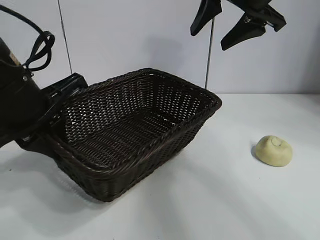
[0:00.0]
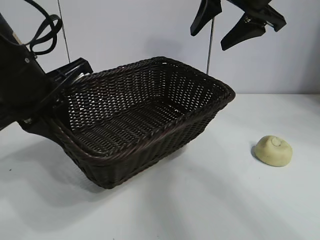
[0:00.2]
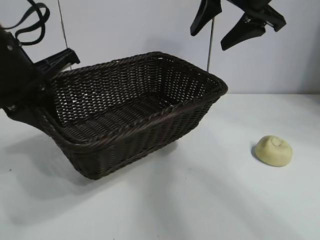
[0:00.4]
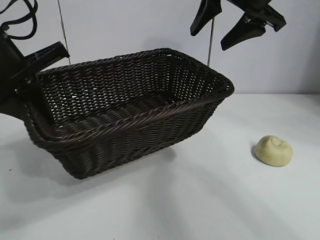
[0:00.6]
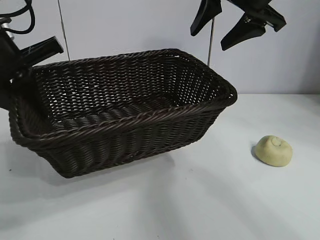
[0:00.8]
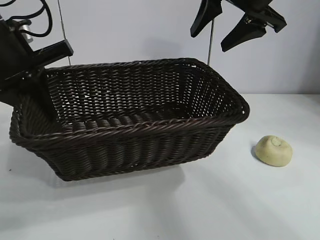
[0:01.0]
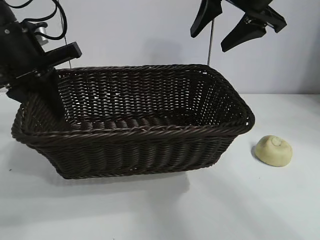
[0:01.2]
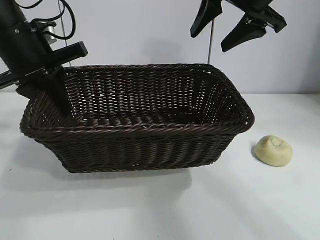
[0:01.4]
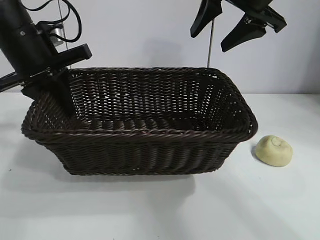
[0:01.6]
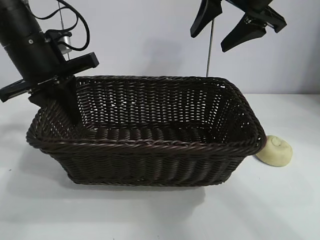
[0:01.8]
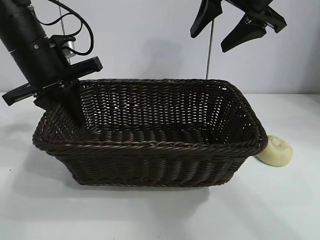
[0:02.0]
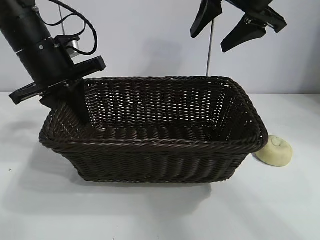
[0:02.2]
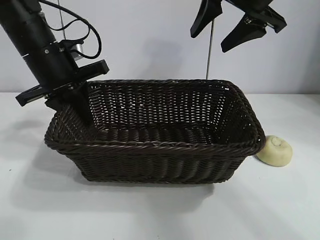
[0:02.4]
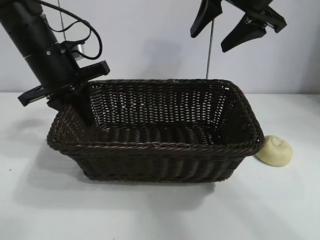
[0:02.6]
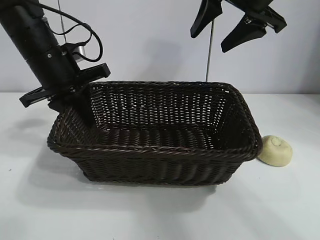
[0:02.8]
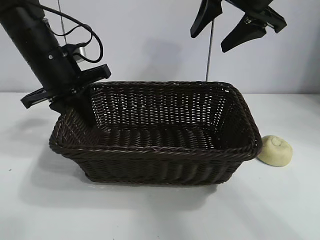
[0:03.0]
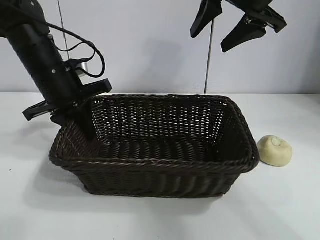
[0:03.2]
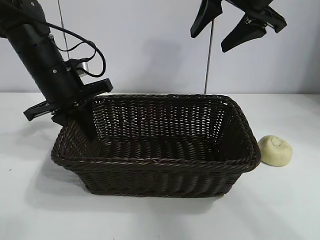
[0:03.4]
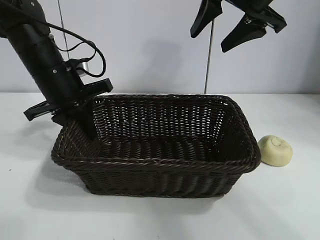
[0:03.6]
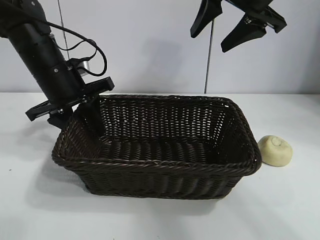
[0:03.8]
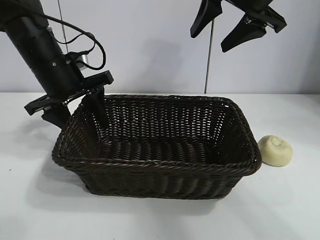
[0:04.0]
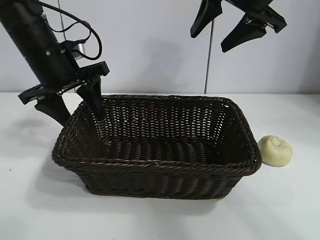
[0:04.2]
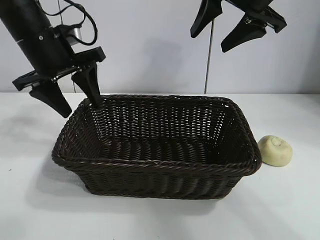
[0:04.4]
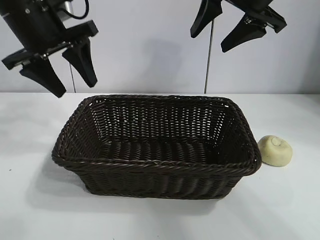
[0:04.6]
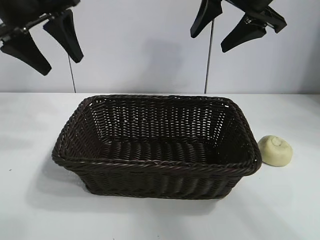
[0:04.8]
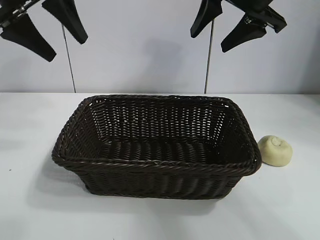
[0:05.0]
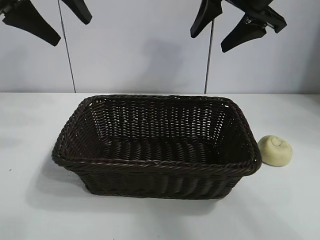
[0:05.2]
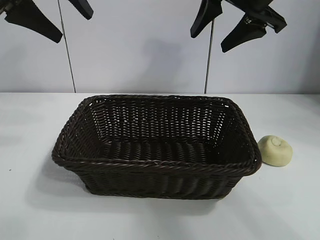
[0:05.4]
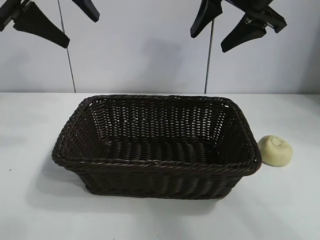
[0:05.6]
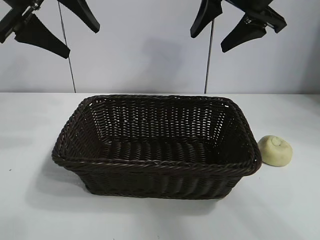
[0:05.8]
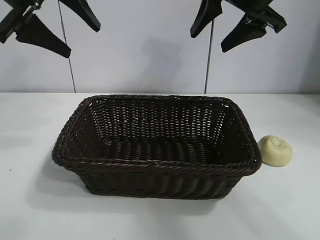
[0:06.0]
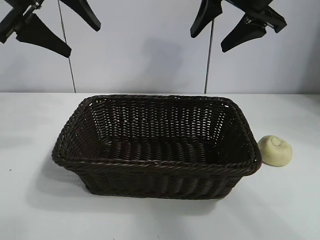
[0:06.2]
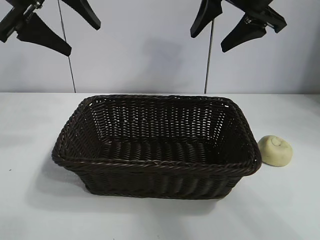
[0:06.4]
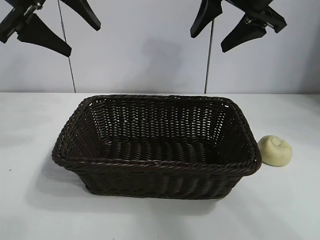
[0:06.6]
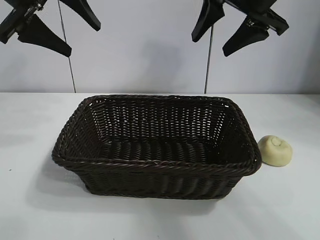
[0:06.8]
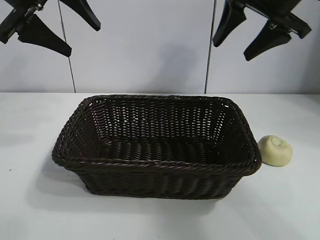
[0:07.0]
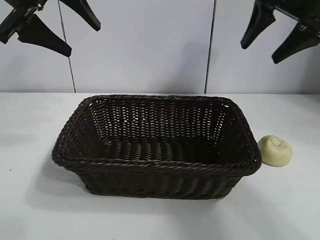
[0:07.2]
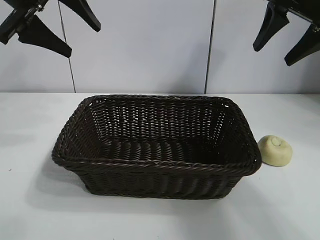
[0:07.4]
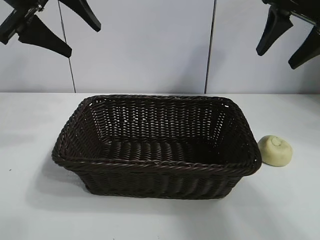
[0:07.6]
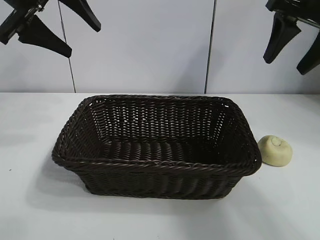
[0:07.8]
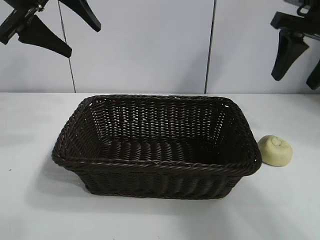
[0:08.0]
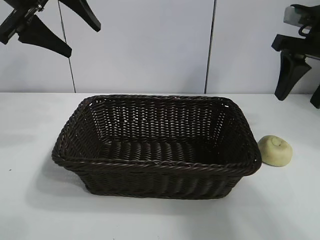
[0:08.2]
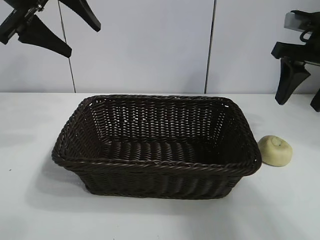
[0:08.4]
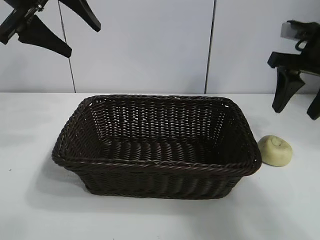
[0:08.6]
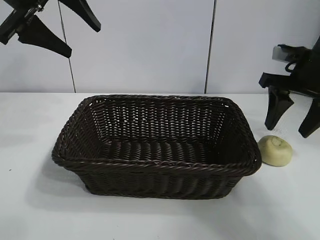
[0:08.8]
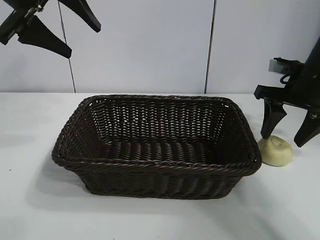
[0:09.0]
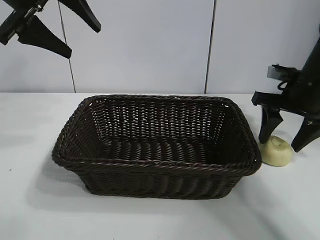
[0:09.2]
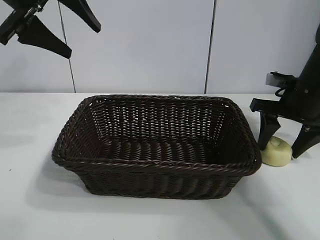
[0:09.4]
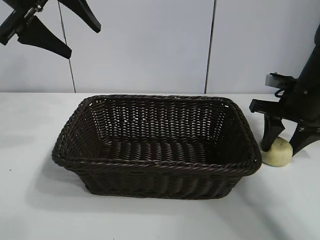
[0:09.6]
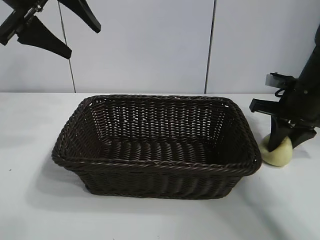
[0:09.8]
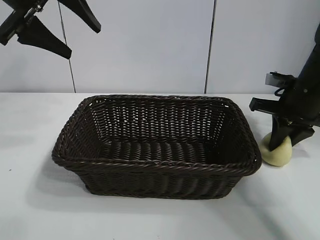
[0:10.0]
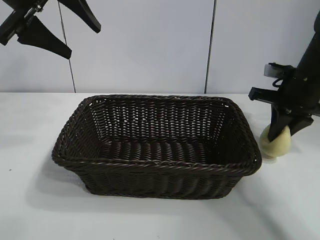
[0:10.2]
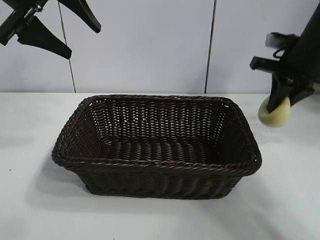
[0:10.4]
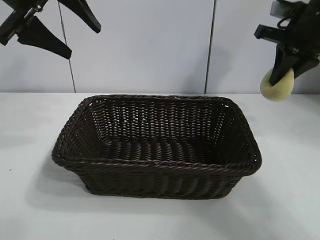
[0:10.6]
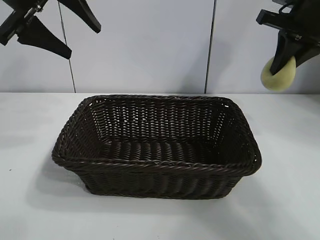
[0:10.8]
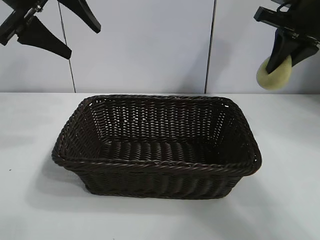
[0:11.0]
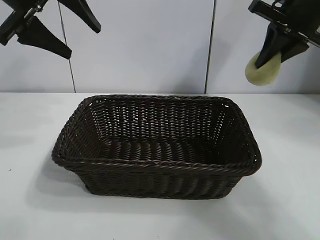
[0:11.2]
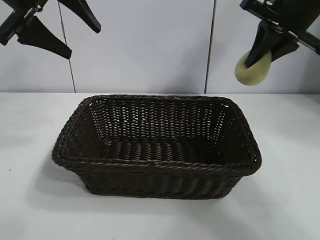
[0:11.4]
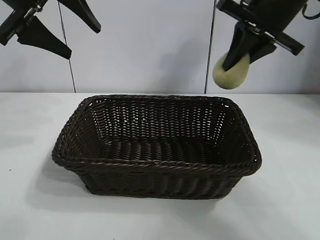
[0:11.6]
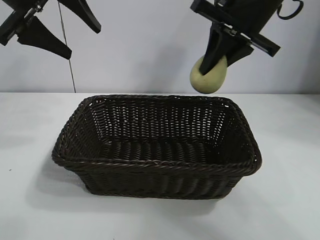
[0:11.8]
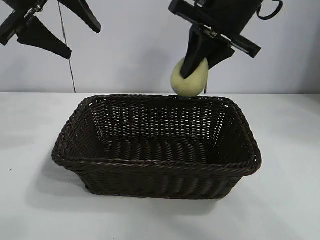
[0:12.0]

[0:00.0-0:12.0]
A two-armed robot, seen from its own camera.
Task of the whole recording: pick up the egg yolk pastry and put it into the basket.
Step, 0:00.0 to 0:04.0: Place the basket in the center of view with left gripper.
Step, 0:04.2 to 0:09.8: Grasp egg yolk pastry with right gripper.
